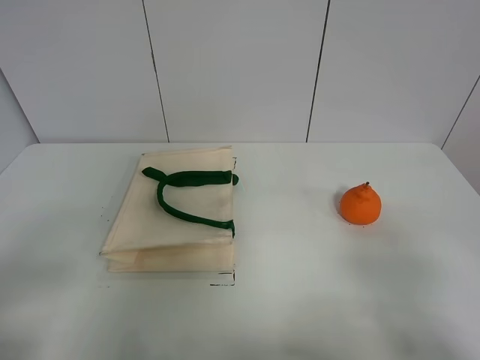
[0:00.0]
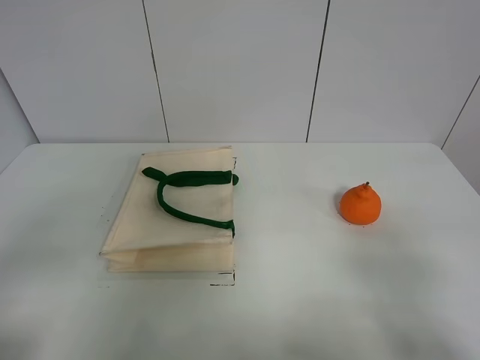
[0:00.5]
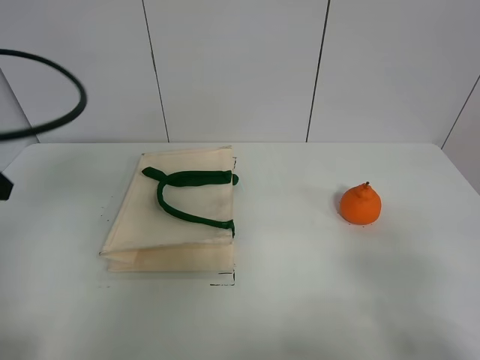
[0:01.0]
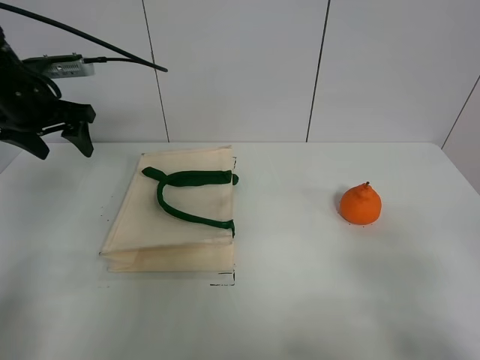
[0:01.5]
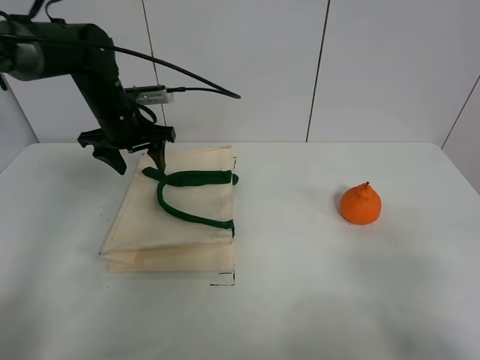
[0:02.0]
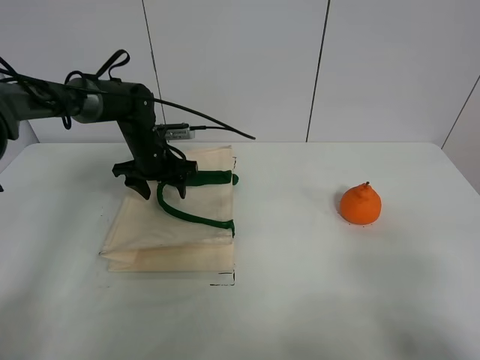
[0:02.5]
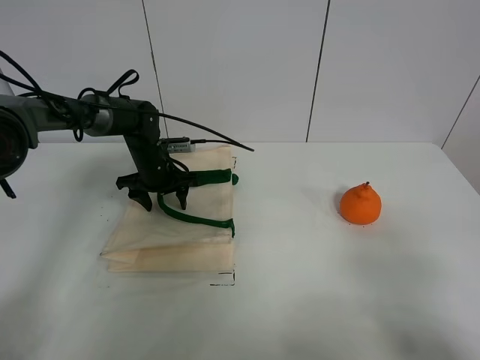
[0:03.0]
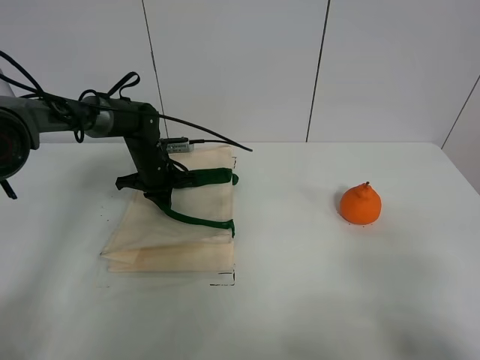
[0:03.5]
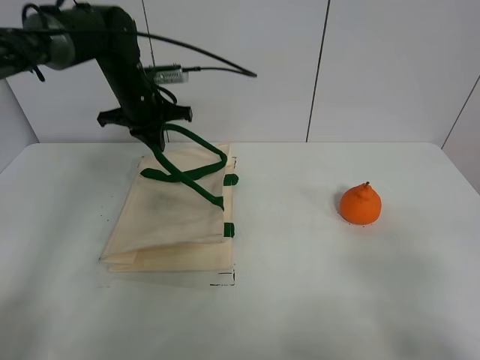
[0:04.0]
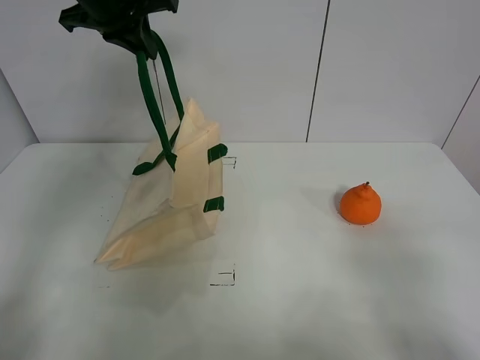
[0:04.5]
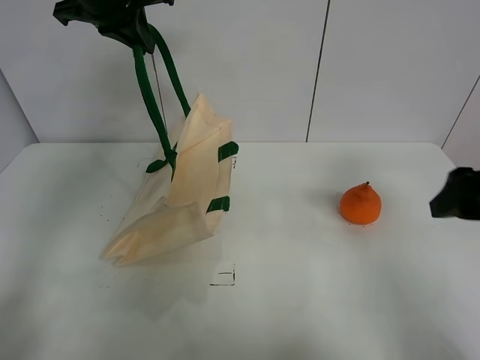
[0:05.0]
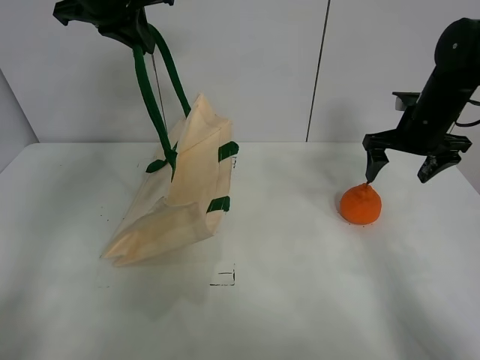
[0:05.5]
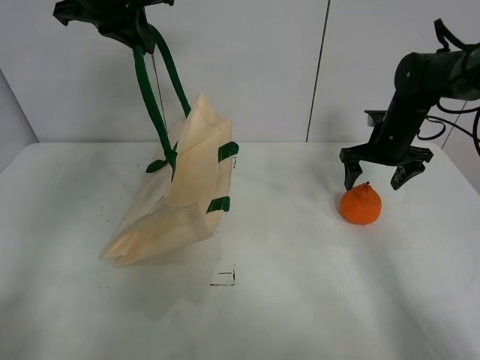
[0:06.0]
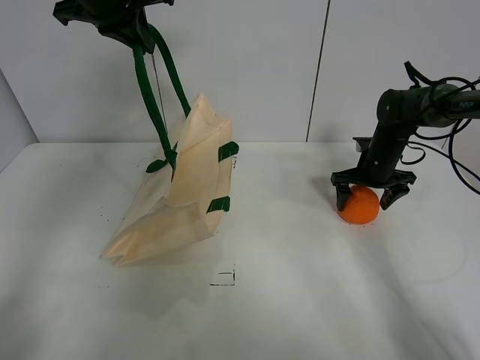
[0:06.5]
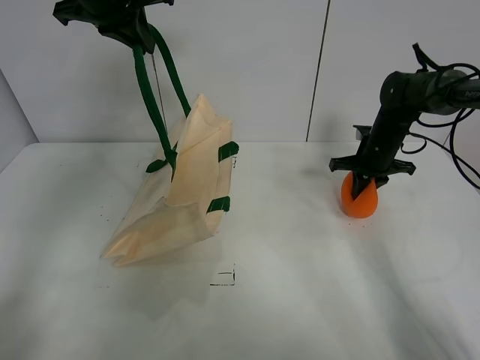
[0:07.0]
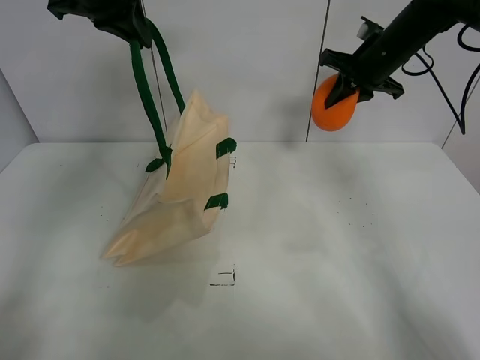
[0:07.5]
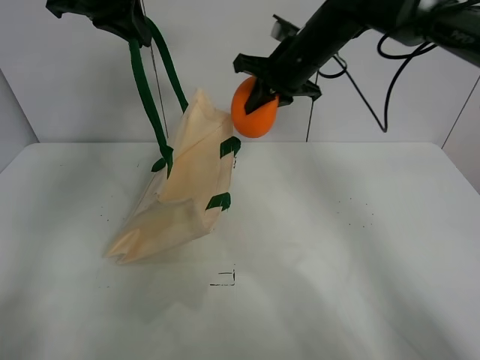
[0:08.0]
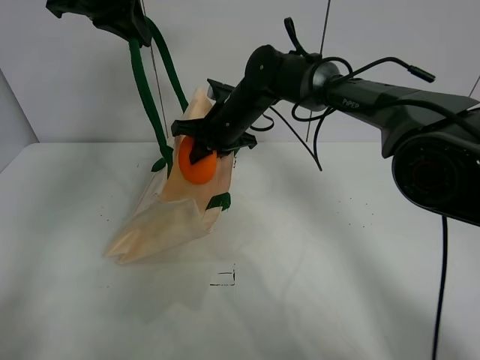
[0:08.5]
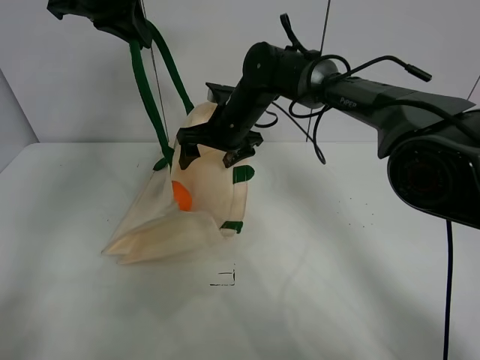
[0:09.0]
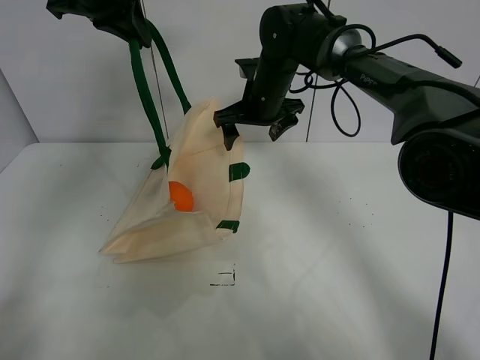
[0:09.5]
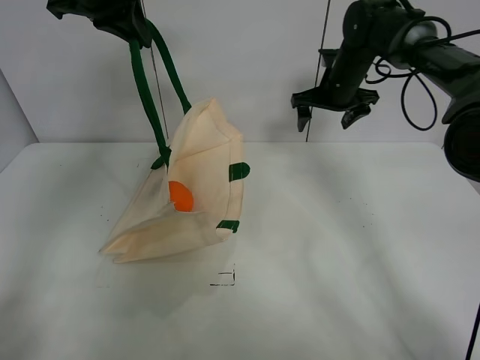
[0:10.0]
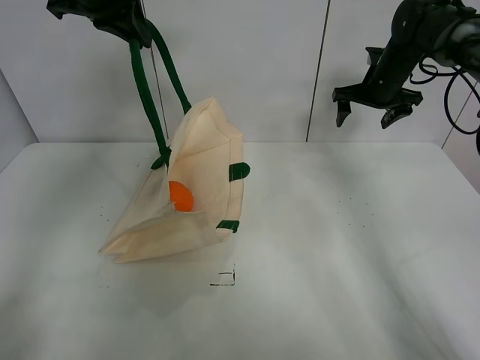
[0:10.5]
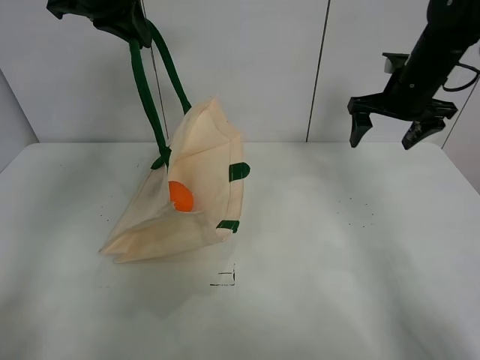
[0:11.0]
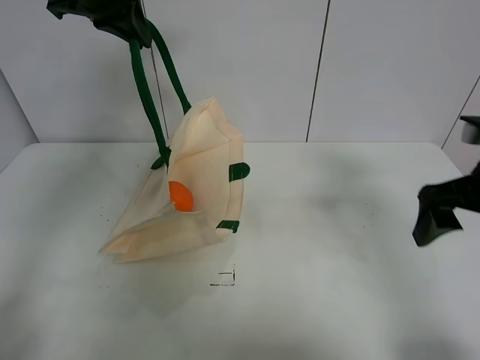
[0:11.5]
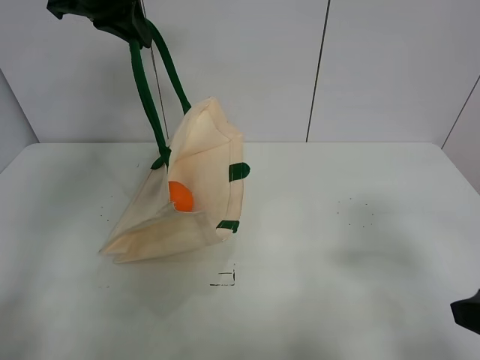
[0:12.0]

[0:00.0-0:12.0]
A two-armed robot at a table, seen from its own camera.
Task of the whole recording: open the white linen bag and put the orange in the bag.
Step, 0:00.0 to 0:04.0: Lift the handbag with left gripper.
Step, 0:04.5 to 0:07.0: Grasp the orange with right gripper.
Step, 0:07.5 to 0:09.5: Place the orange in the handbag with right gripper.
0:00.0 to 0:02.0: The left gripper heads forward, covering roughly 40 cm.
0:02.0 to 0:04.0: The left gripper reaches some 10 cm downward, then returns, and closes up.
0:04.0 to 0:06.0: The left gripper goes approximately 15 cm upward; the right gripper heads forward, covering roughly 40 cm.
0:06.0 to 0:08.0: The right gripper travels to the left and upward by roughly 20 cm, and closes its fingers.
0:08.0 to 0:10.0: The right gripper is displaced to the right, forward and downward by approximately 15 cm, and opens its fingers.
0:10.0 to 0:12.0: The right gripper travels backward by approximately 40 cm.

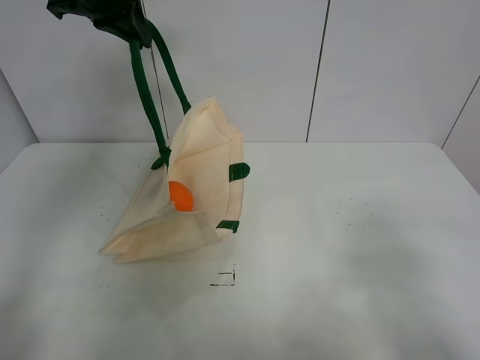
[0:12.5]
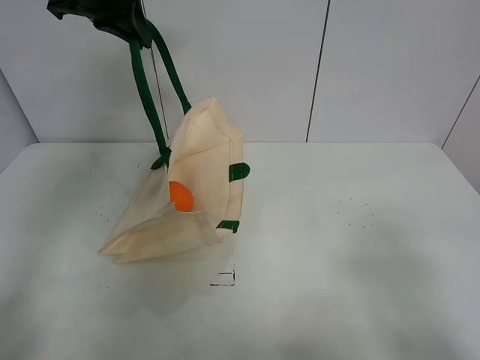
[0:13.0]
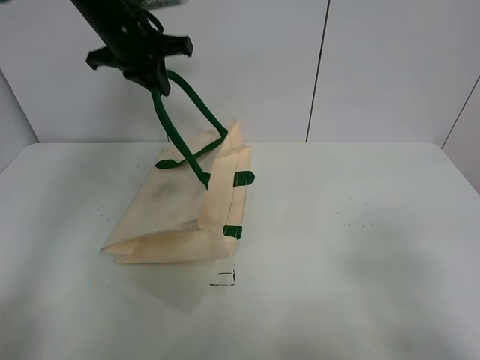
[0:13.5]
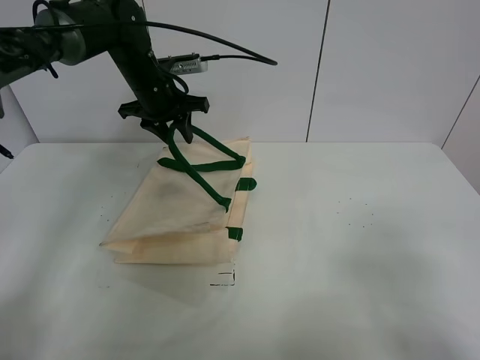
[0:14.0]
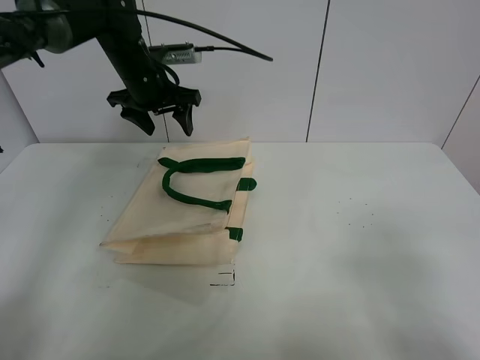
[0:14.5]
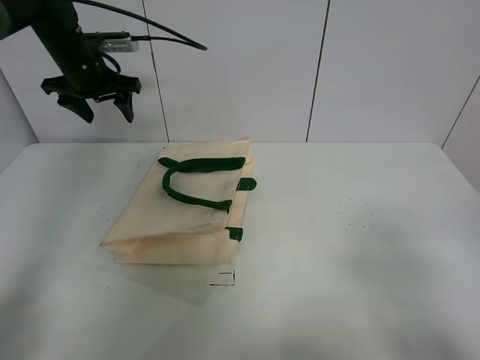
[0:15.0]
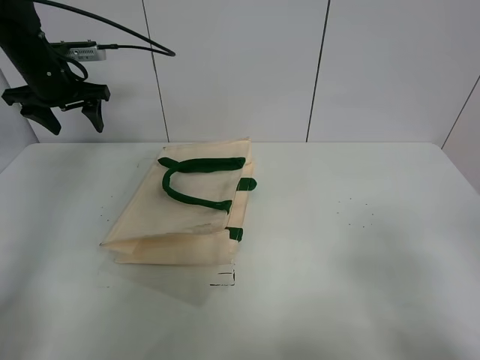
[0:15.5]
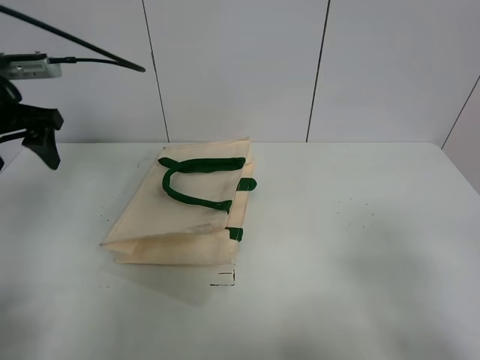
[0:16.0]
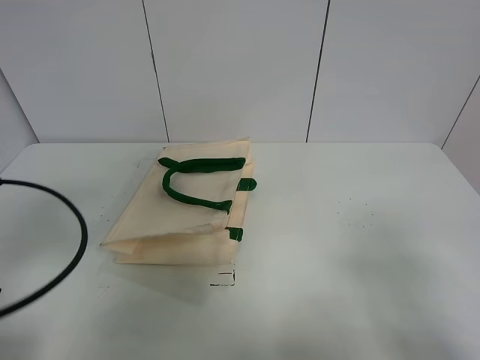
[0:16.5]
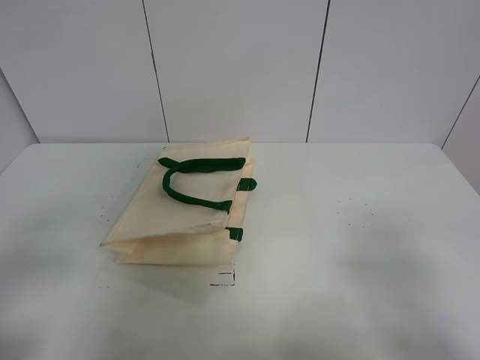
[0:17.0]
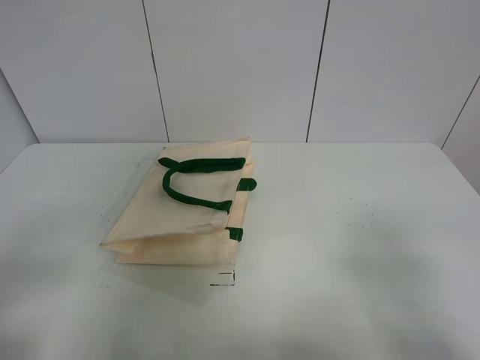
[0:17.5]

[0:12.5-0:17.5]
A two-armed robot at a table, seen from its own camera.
Task of the whole recording: open the white linen bag and put the orange in the bag.
0:12.5 to 0:15.0: The left gripper goes about 20 cm downward, to the left and forward, and opens its fingers.
0:15.0 to 0:17.5: The left gripper heads backward, covering approximately 50 cm.

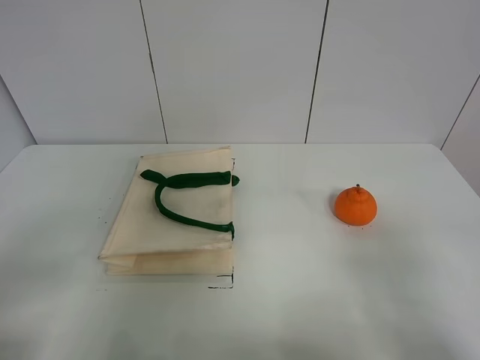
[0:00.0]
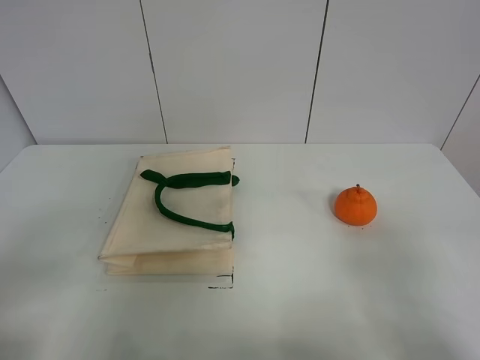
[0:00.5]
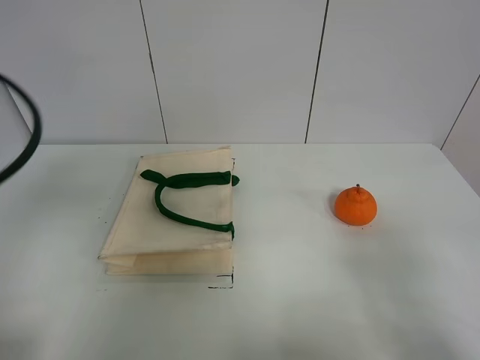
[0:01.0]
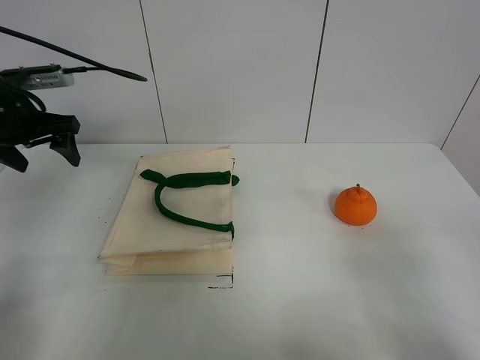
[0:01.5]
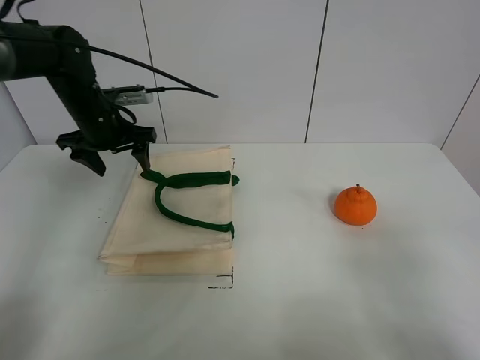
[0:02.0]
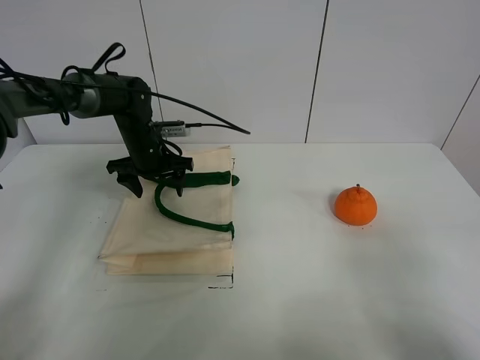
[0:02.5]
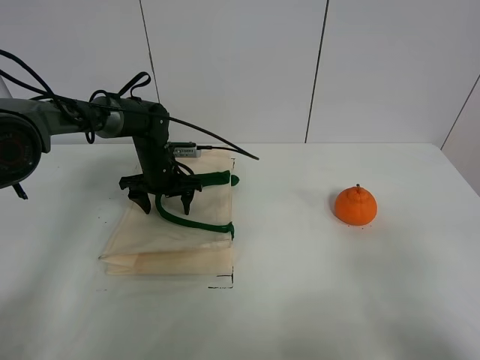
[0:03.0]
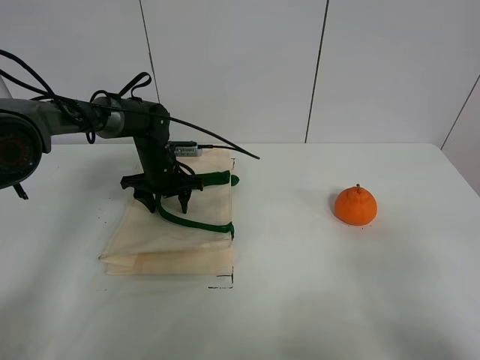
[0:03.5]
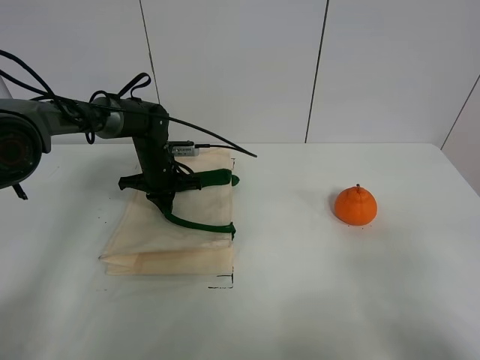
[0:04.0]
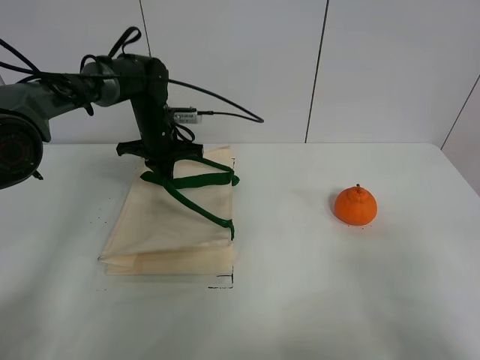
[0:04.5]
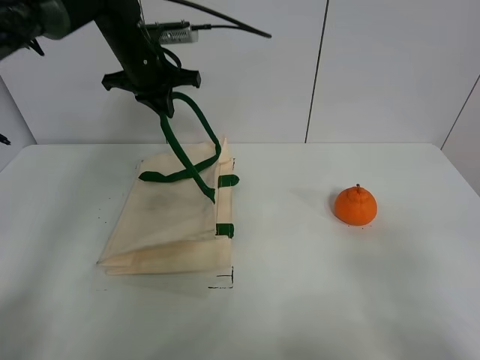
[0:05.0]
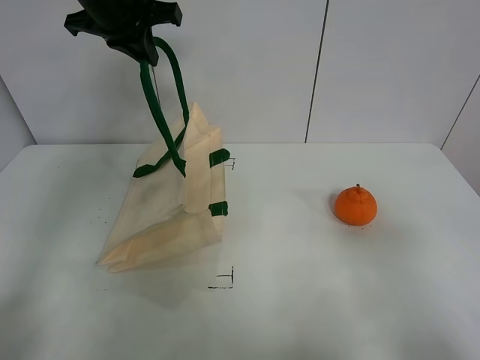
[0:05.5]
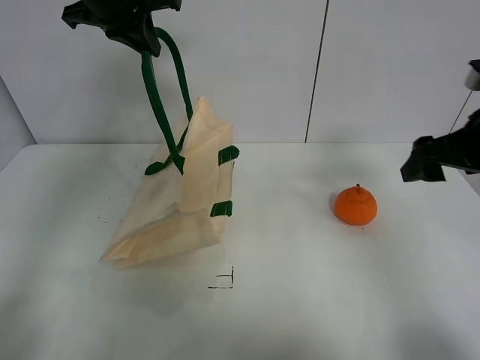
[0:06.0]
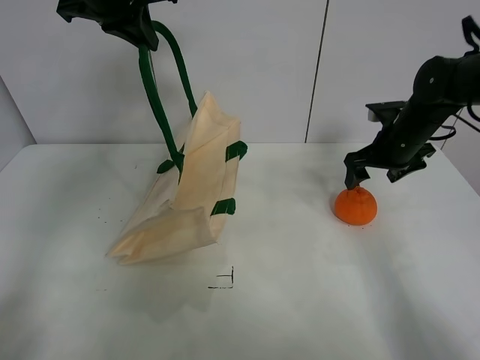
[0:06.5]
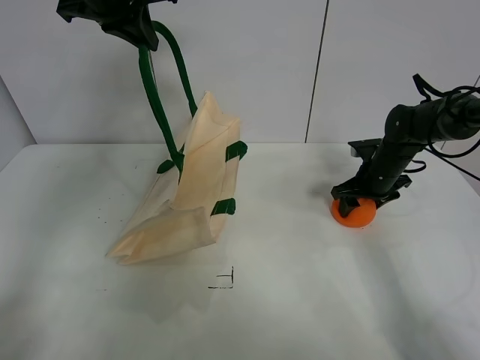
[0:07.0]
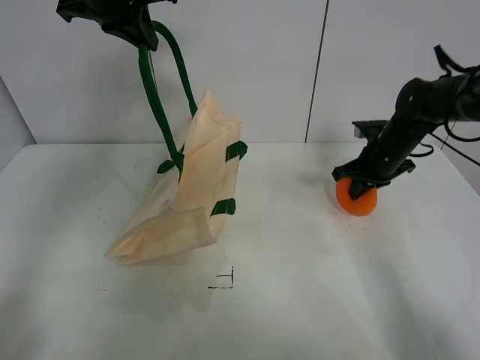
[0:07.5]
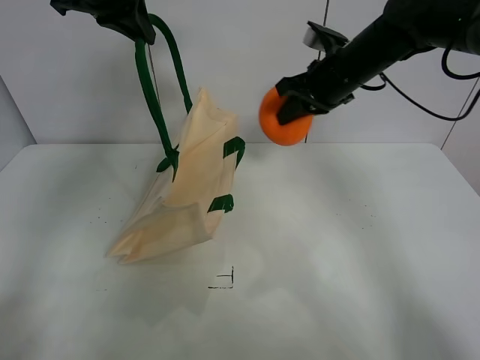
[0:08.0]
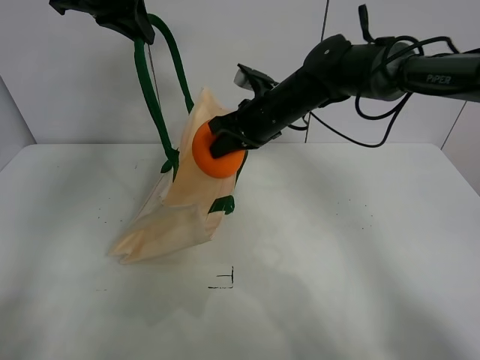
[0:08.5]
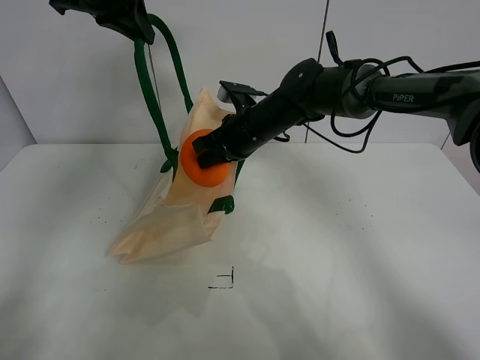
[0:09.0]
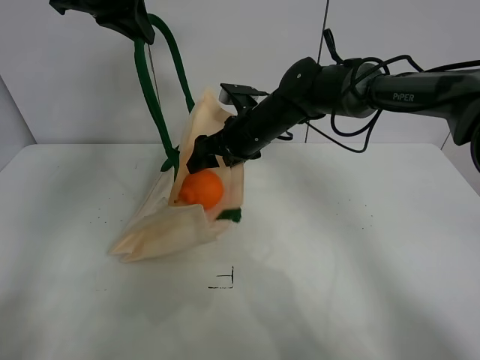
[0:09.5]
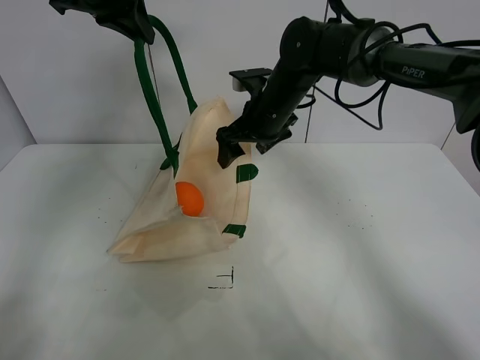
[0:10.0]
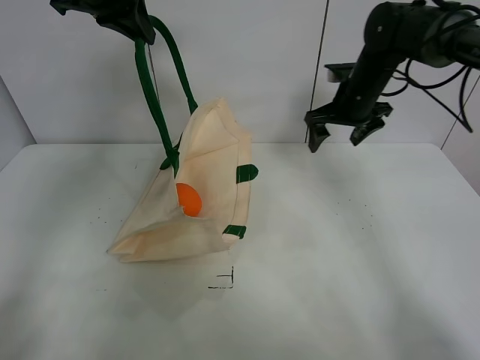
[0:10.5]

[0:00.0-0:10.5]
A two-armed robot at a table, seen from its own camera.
Task of the whole recording: open the white linen bag and put the orange in the bag.
Step, 0:00.0 to 0:05.5: Lift the handbag with left gripper.
Step, 0:06.0 to 0:07.0: Grasp the orange with right gripper.
Step, 0:07.5 to 0:09.5: Place the orange in the handbag with right gripper.
0:00.0 to 0:02.0: The left gripper shifts some 40 cm forward.
0:02.0 to 0:04.0: The left gripper is displaced downward and to the right by roughly 15 cm, and closes.
0:04.0 to 0:06.5: The left gripper shifts approximately 30 cm upward. Meanwhile the right gripper moves forward, approximately 40 cm.
0:06.5 to 0:08.5: The right gripper goes some 20 cm to the left, and closes.
0:08.5 to 0:10.5: The right gripper heads to the right, covering some 15 cm, and opens.
